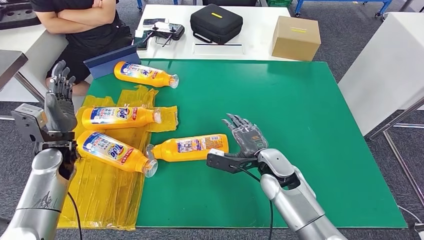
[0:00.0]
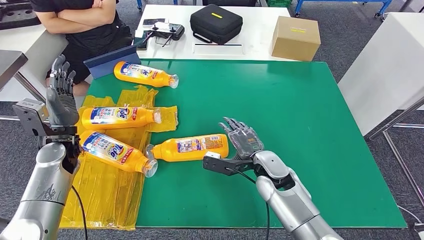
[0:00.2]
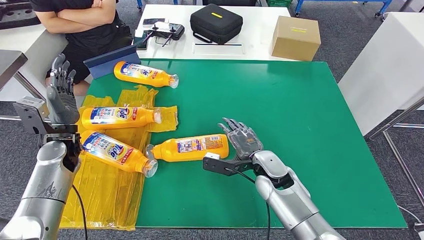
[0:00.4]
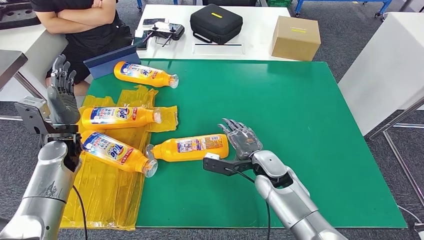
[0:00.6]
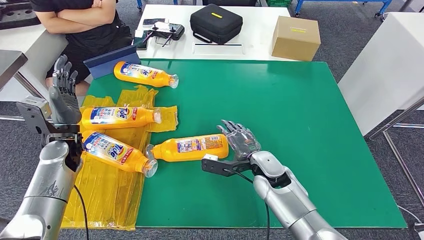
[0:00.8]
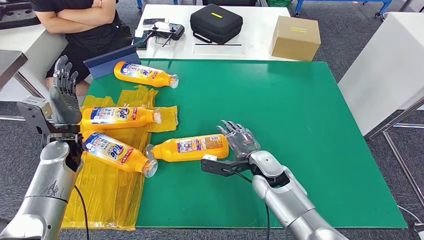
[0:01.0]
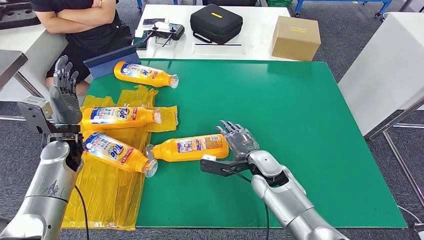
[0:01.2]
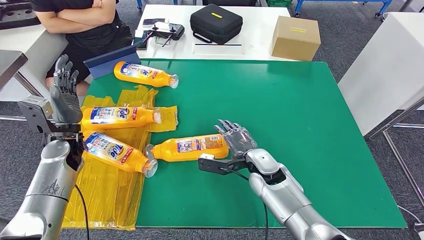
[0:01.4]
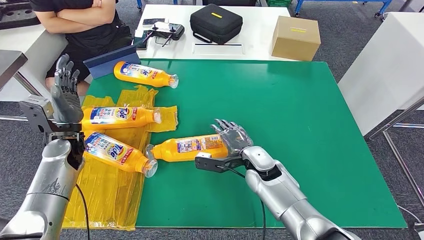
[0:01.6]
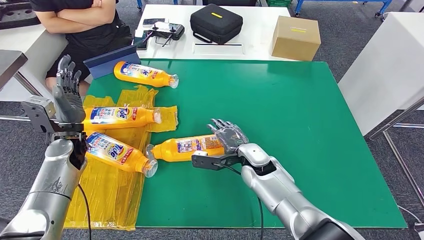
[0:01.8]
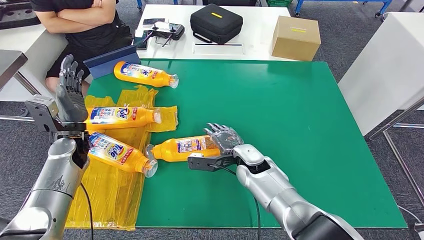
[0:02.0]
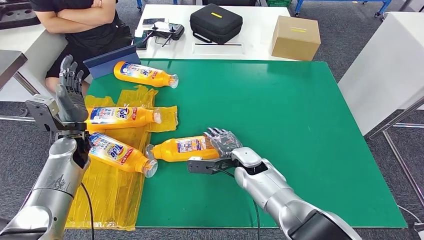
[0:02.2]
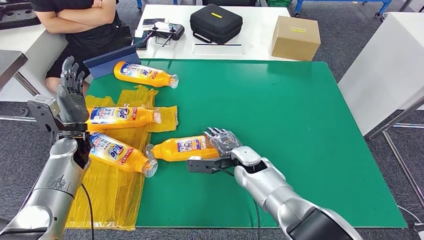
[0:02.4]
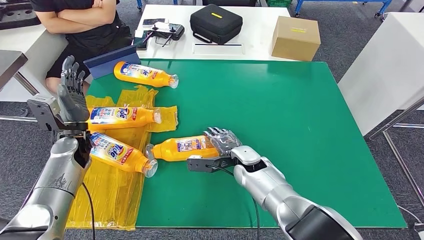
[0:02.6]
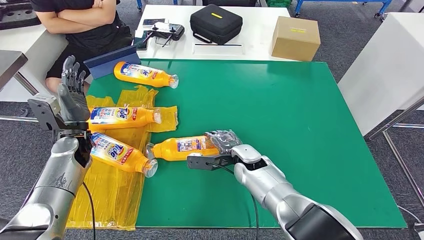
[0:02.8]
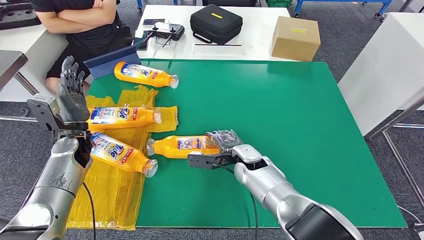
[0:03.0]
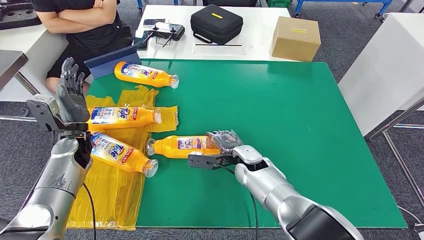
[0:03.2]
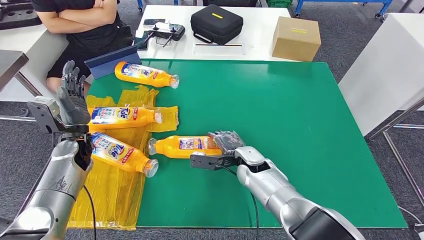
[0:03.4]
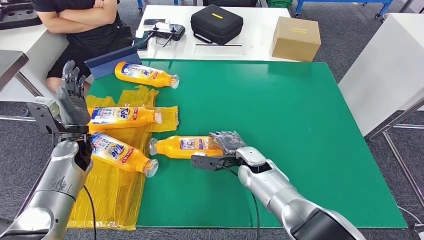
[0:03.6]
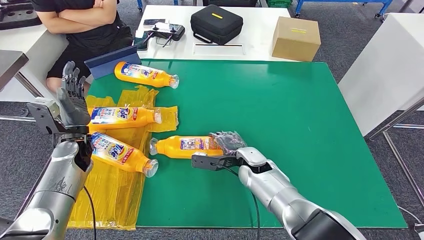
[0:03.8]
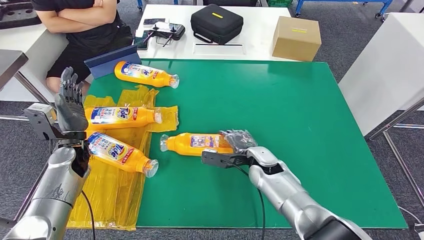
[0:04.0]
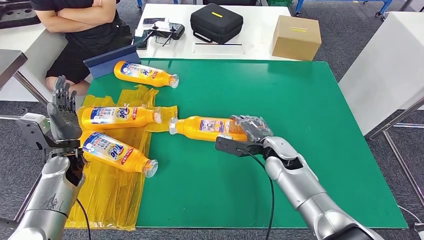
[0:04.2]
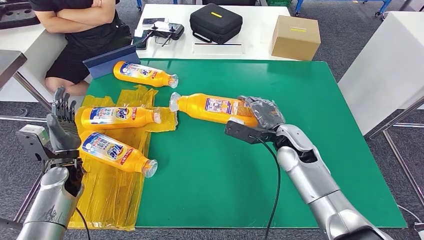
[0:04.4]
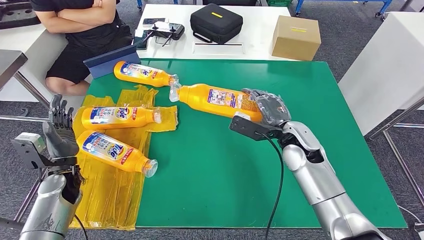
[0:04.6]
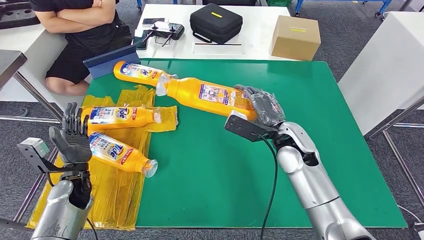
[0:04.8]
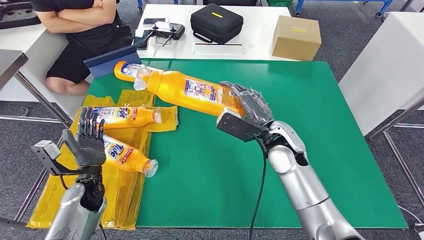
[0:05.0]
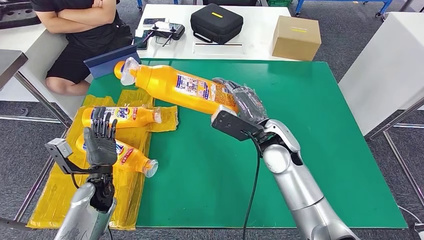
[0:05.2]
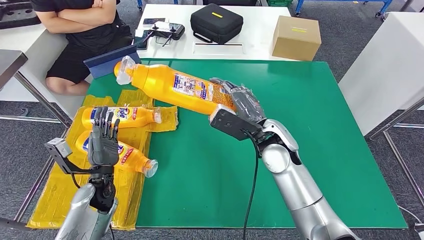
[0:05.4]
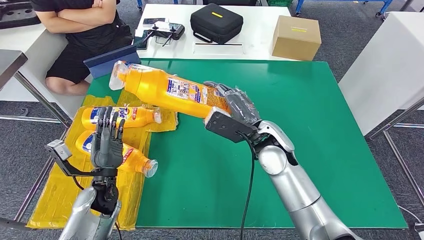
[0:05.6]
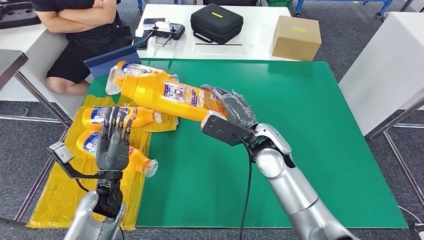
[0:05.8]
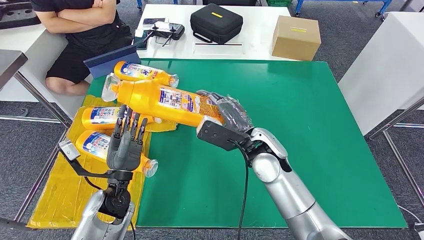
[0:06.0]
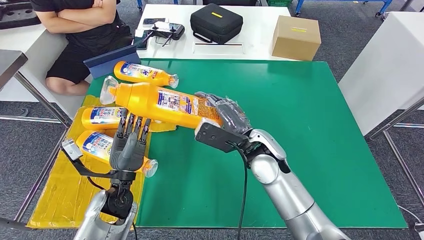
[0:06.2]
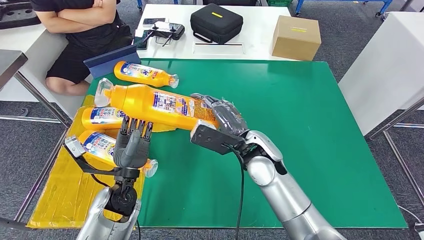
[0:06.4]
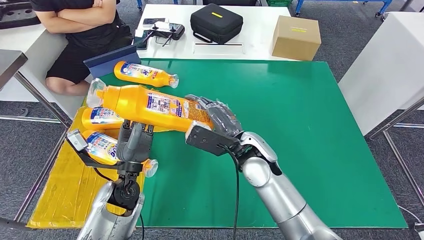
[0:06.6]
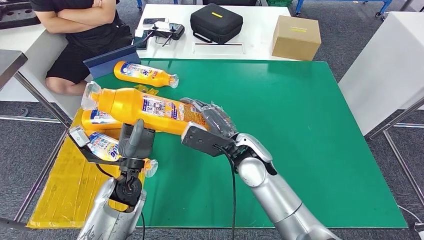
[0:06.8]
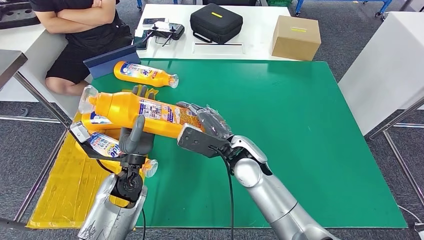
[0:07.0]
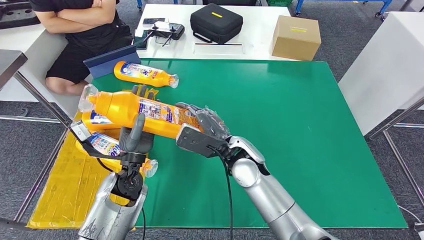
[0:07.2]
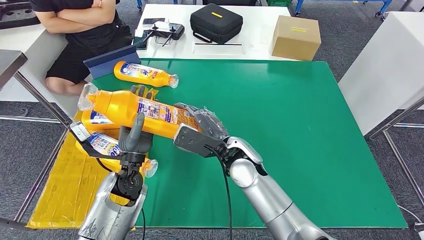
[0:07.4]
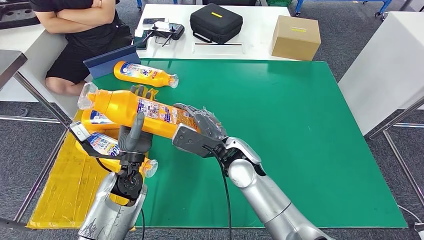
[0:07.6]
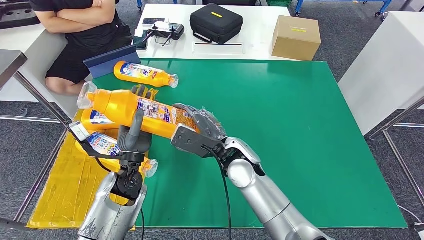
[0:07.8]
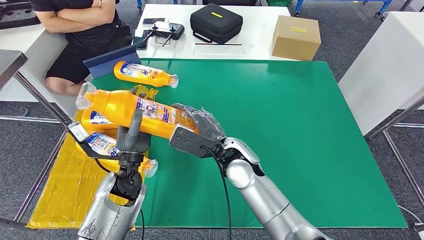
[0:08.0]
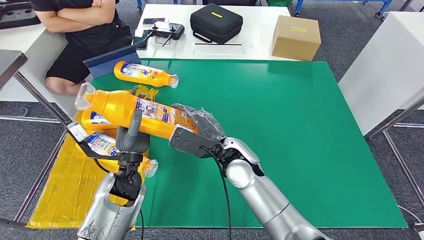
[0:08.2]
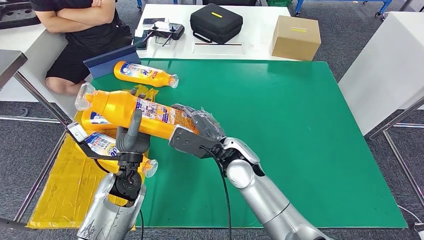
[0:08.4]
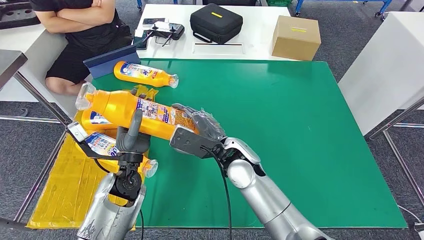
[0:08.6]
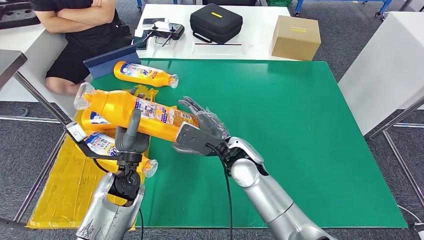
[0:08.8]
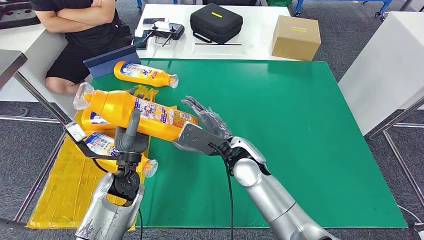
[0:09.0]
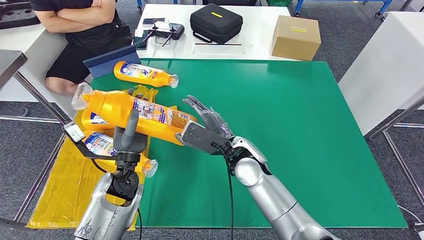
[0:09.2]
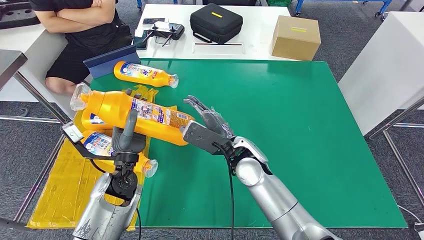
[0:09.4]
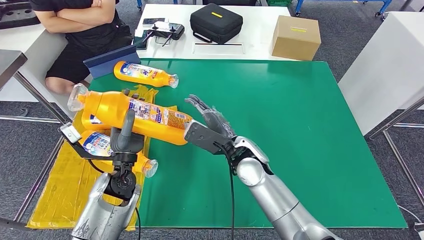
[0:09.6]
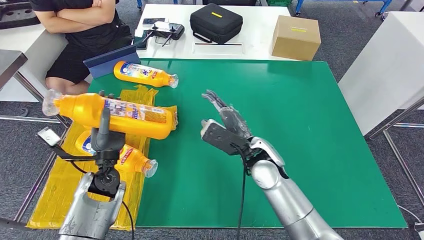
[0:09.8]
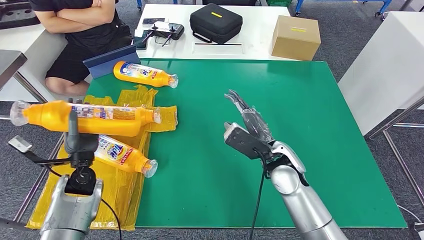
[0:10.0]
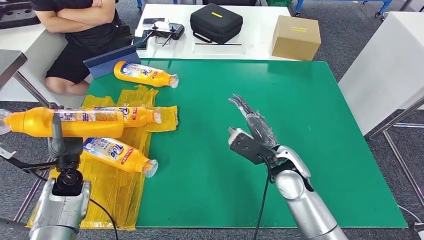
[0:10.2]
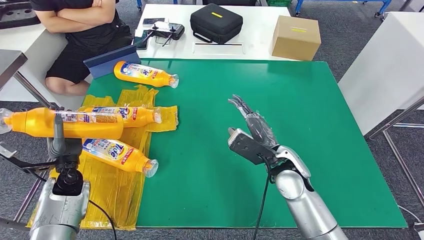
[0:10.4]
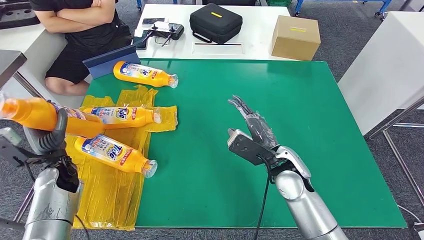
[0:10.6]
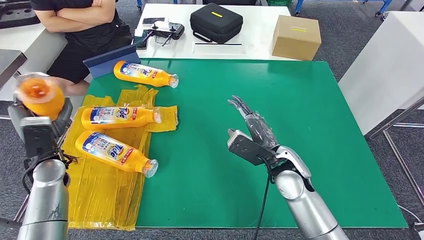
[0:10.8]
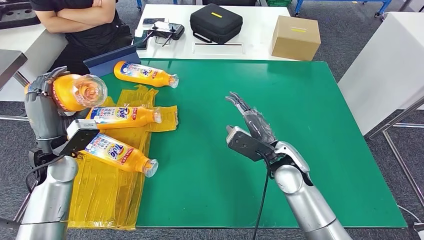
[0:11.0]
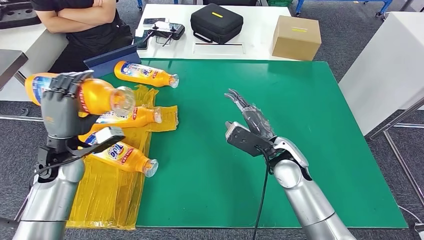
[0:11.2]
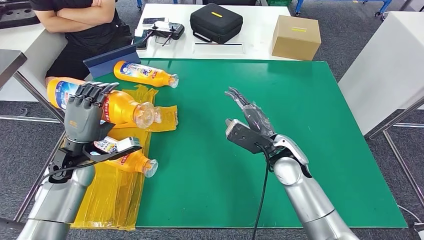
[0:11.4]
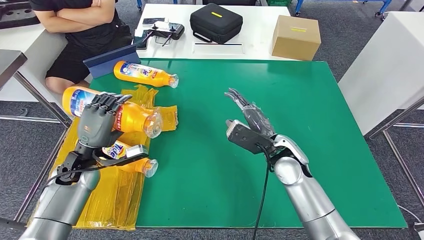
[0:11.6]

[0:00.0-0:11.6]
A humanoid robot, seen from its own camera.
Step, 0:00.0 to 0:09.2: Pick up the bottle from the table.
0:00.0 to 0:01.4: There are only small adjustments of the hands.
0:01.4 to 0:02.8: The right hand ends up roughly 5 cm from where it was.
0:07.2 to 0:08.8: Both hands stay about where they are.
0:10.2 to 0:11.6: The left hand travels upward by about 5 cm.

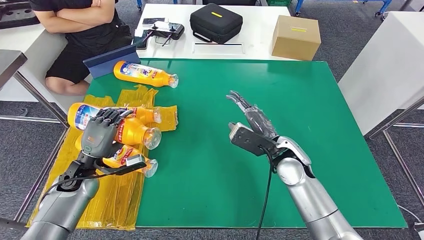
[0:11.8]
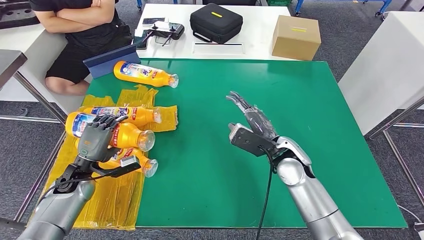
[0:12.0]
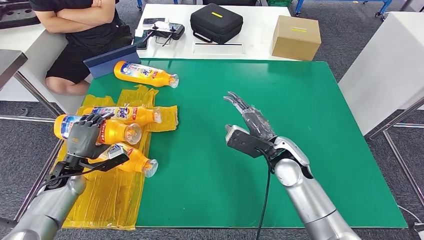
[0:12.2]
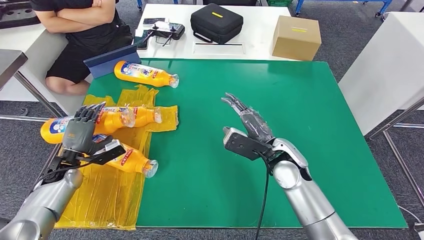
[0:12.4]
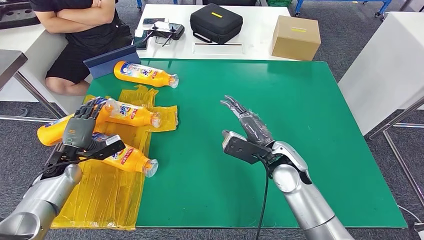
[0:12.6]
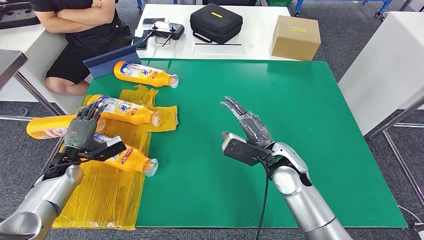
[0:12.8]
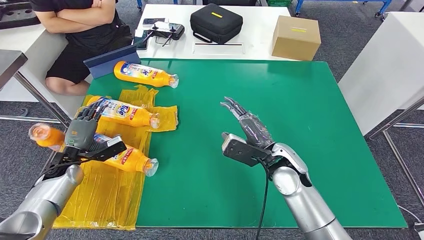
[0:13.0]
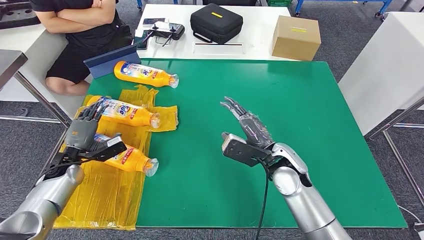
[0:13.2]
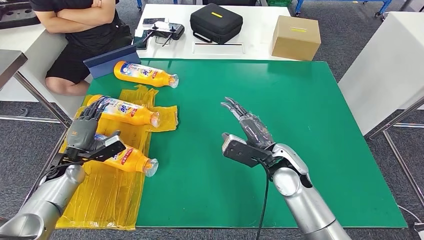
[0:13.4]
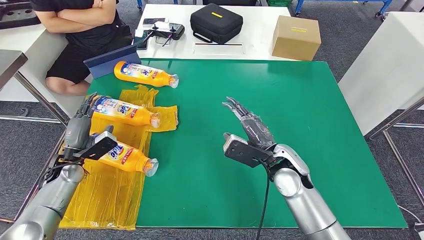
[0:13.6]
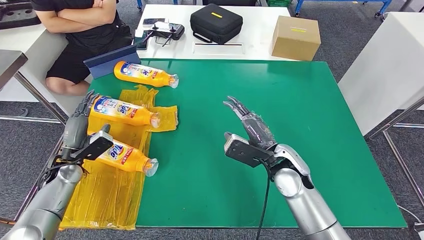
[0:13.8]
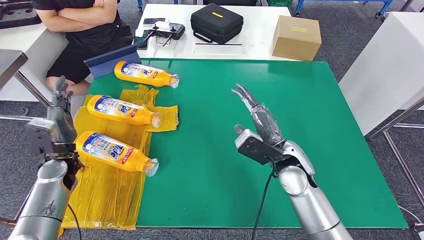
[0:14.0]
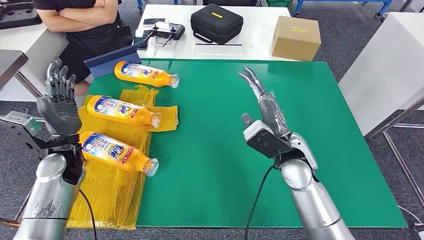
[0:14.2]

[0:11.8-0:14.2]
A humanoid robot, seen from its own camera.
Step, 0:11.8 to 0:14.2: Flip the bottle to face forward.
0:11.8 to 0:13.0: The left hand shifts some 5 cm to the left.
0:13.0 to 0:14.2: The left hand goes roughly 10 cm upward and to the right.
